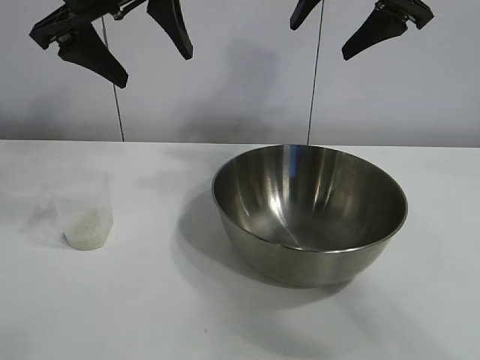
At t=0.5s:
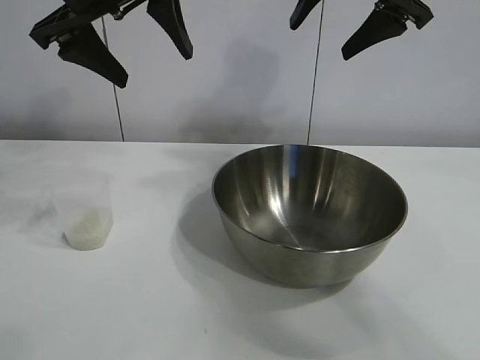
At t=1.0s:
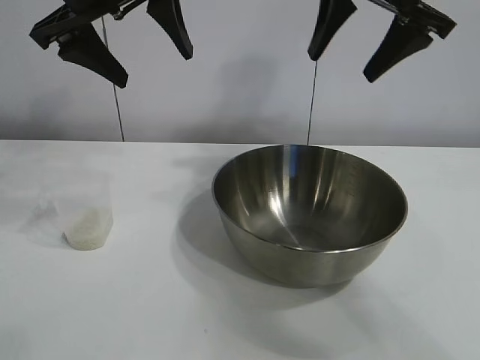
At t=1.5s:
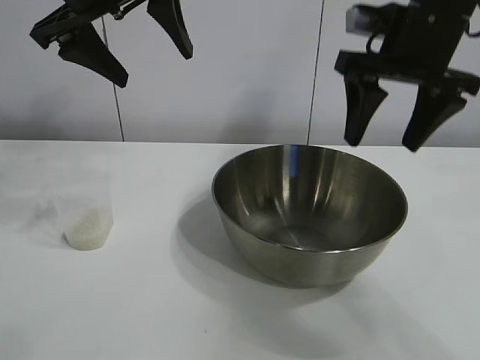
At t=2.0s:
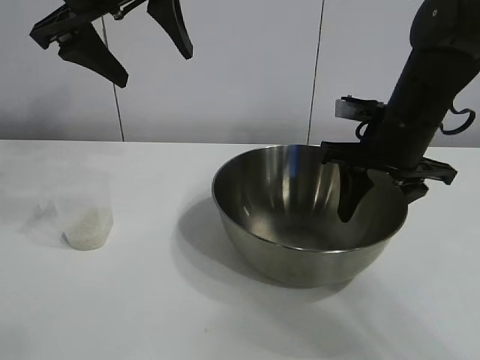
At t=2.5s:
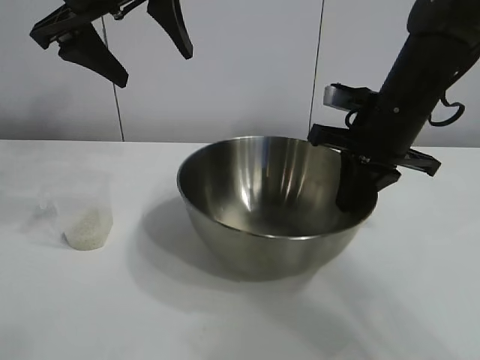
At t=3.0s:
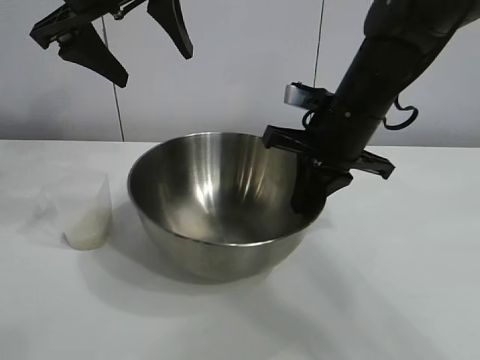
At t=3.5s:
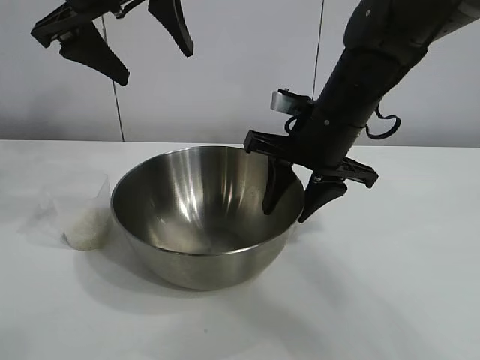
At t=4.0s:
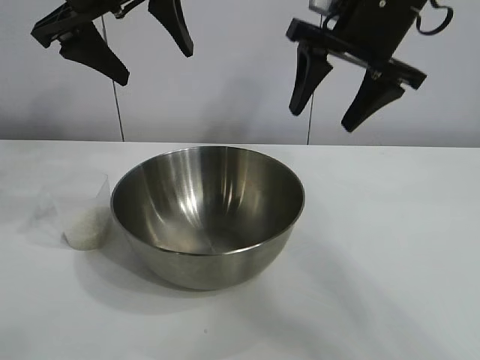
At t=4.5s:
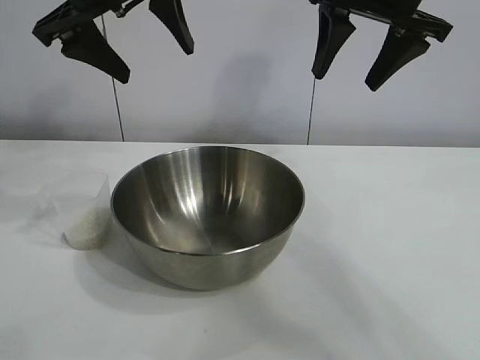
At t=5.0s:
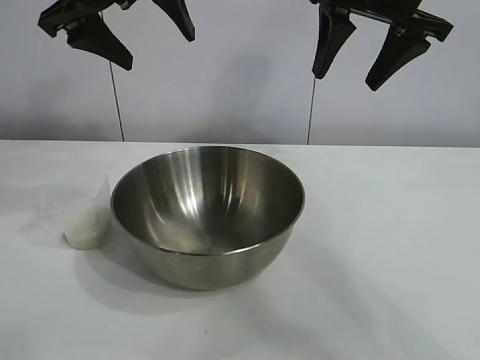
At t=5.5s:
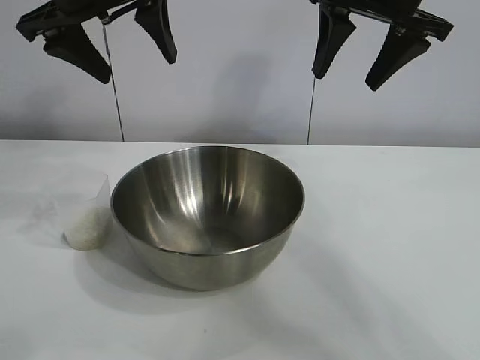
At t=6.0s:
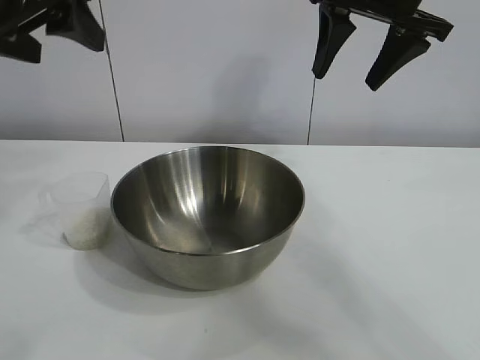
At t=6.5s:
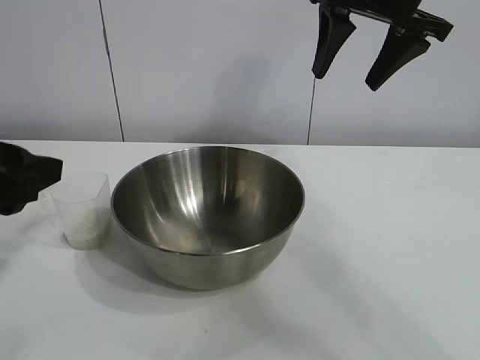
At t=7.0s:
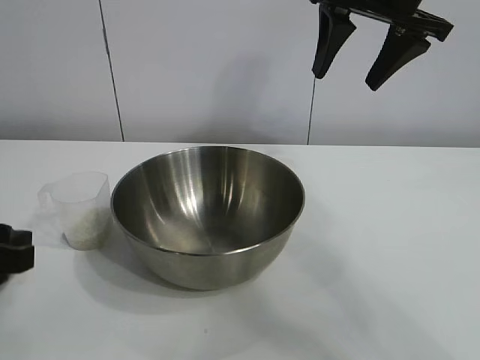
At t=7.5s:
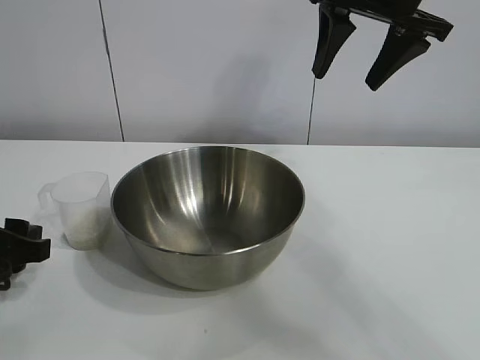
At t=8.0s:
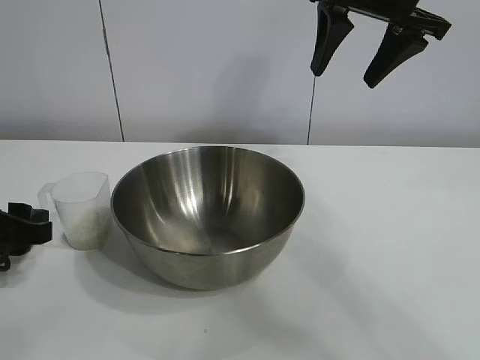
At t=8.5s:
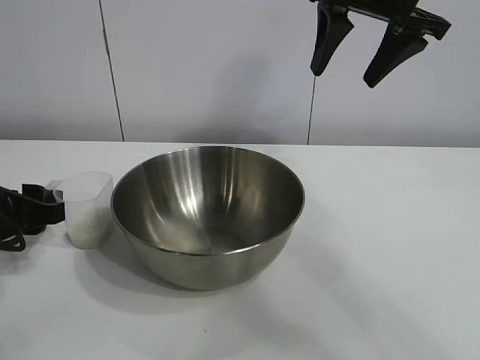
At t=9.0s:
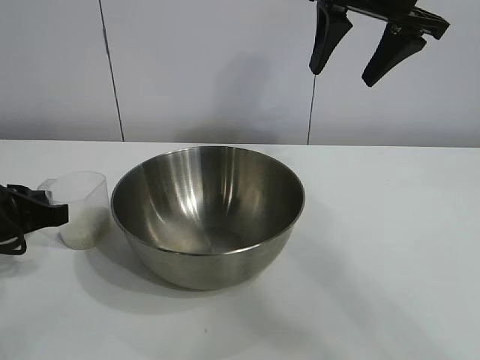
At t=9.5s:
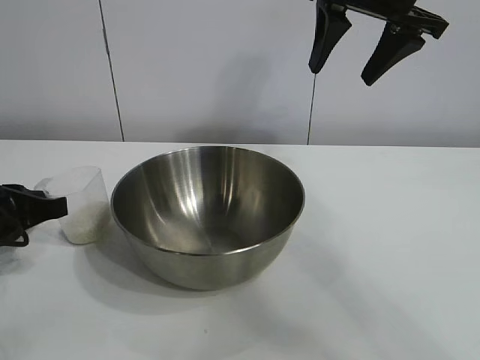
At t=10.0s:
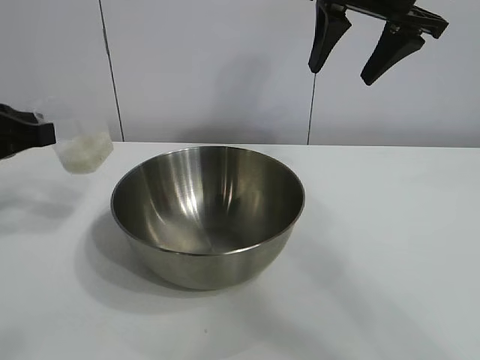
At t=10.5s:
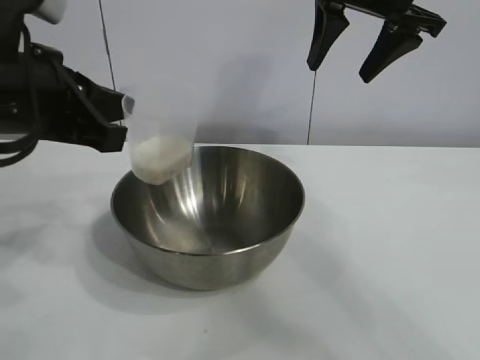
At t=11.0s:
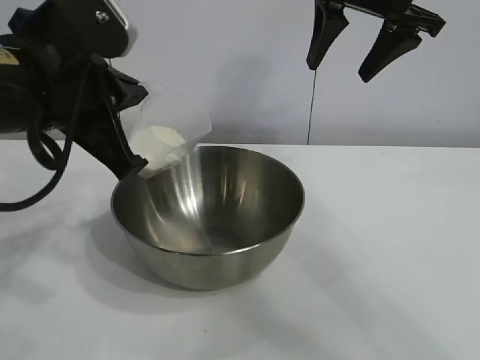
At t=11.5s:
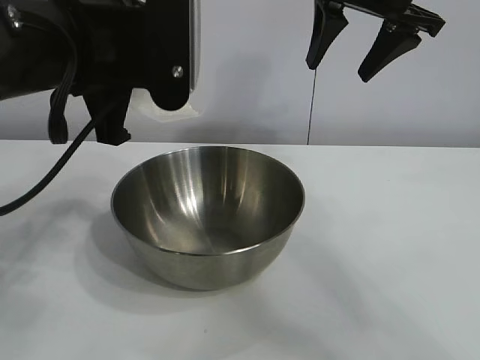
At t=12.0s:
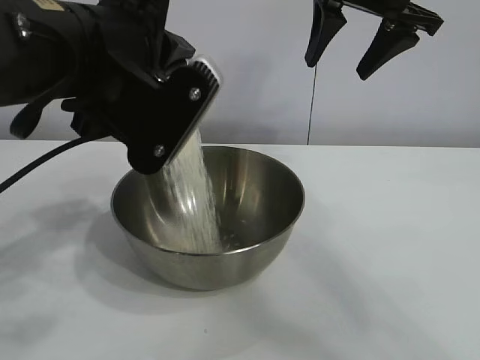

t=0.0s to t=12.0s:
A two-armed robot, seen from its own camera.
Task of the whole recording: the right gripper grasp the rice container and place it in the center of the table, the left gripper grasp the rice scoop and pour the rice into the rice container.
Step, t=1.0s to t=3.5s: Move the bowl in the center of view with right gripper.
Step, t=4.0s to t=9.0s: Grasp the cup with rice in it with left gripper.

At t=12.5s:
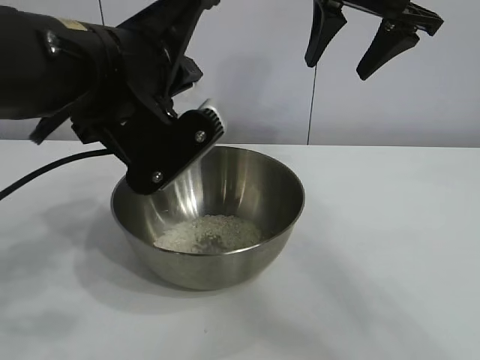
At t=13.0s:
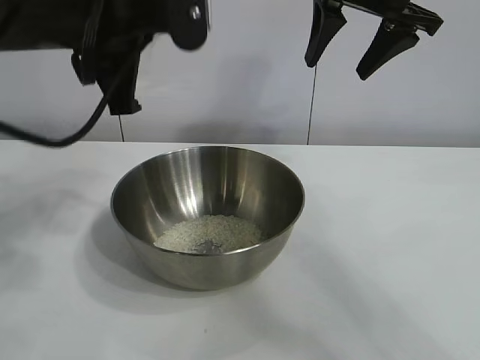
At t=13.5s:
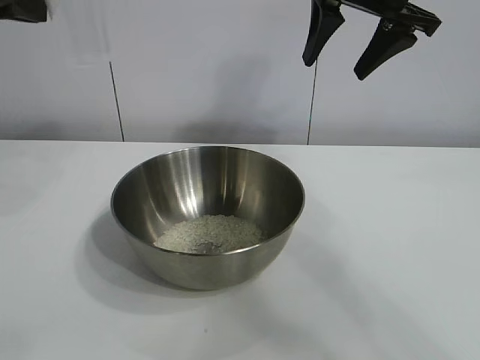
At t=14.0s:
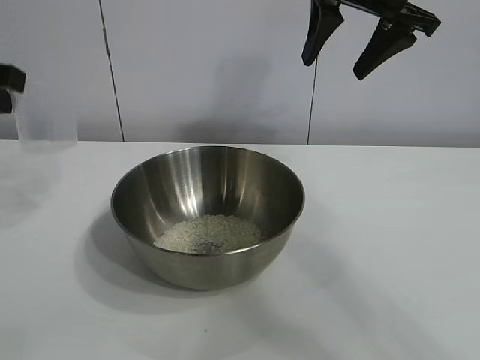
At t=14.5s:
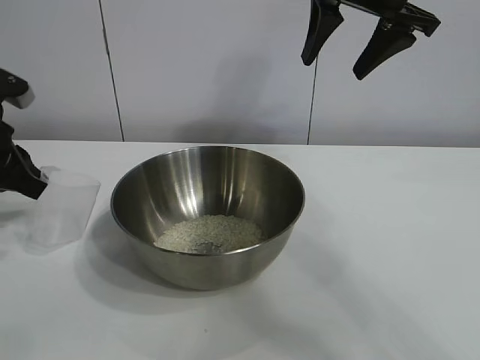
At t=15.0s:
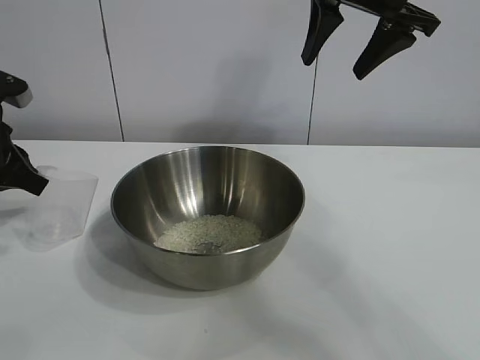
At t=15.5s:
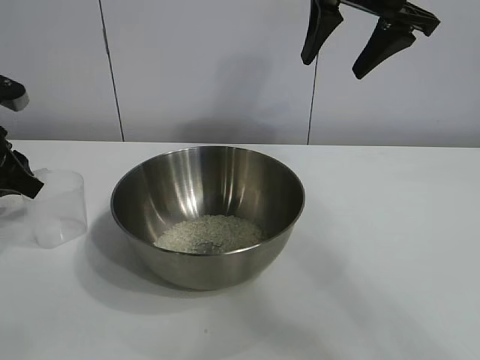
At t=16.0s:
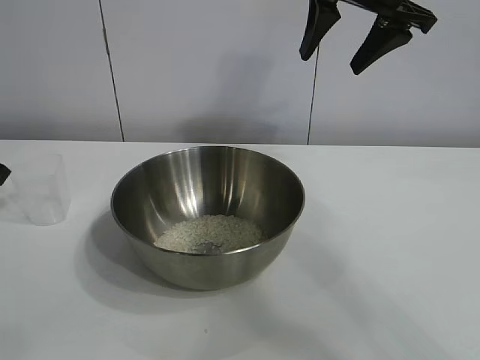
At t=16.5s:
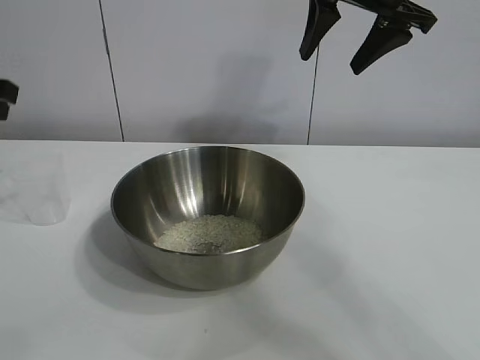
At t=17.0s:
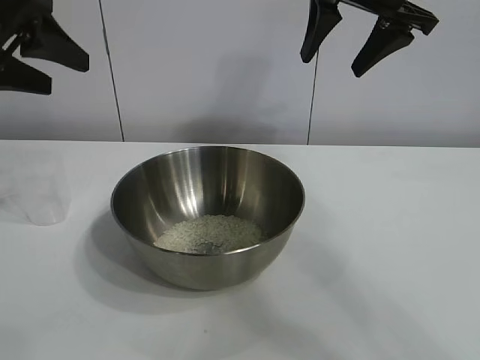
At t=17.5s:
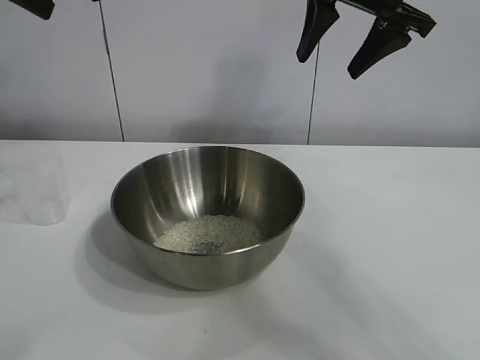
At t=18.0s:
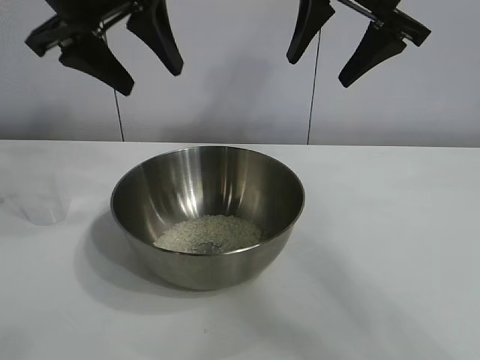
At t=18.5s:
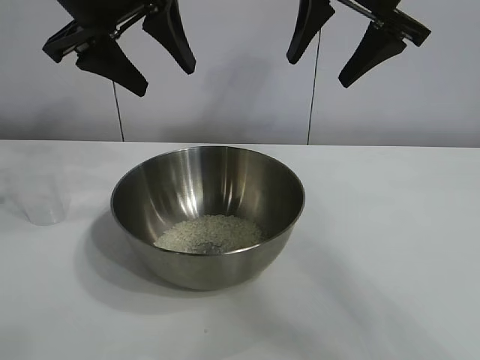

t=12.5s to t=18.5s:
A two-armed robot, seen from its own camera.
Task of the whole recording: the right gripper grasp the rice container and place it in the center of the table, the left gripper grasp the rice scoop and pour the rice into the rice container.
Step, t=13.0s to t=15.5s: Place the cup on the table with the left gripper.

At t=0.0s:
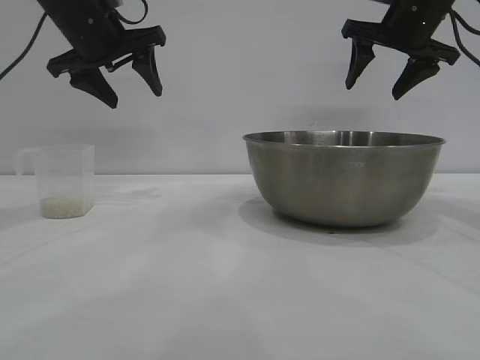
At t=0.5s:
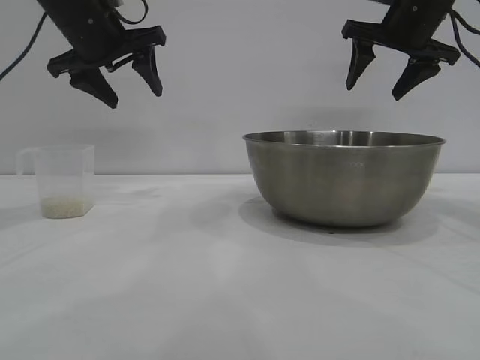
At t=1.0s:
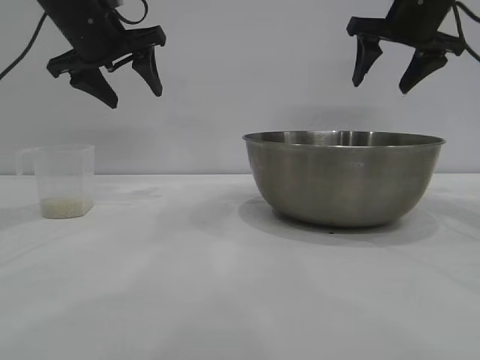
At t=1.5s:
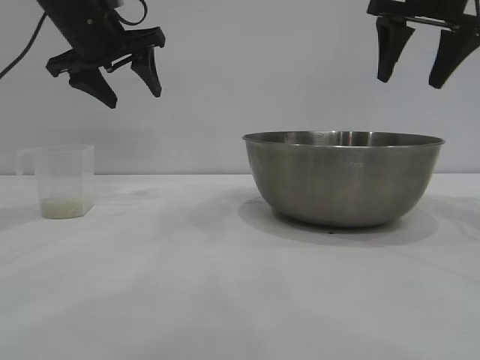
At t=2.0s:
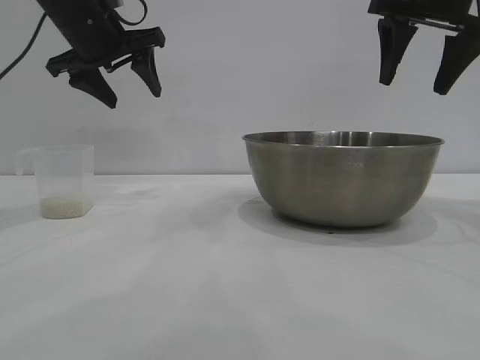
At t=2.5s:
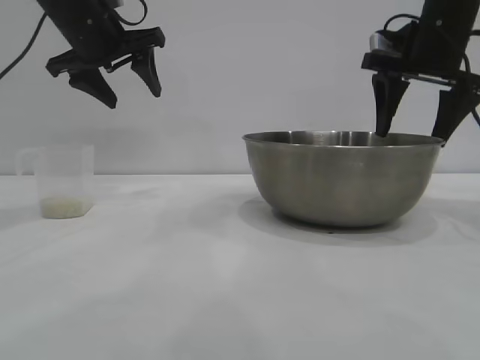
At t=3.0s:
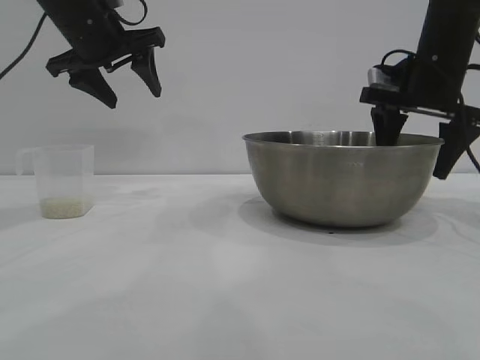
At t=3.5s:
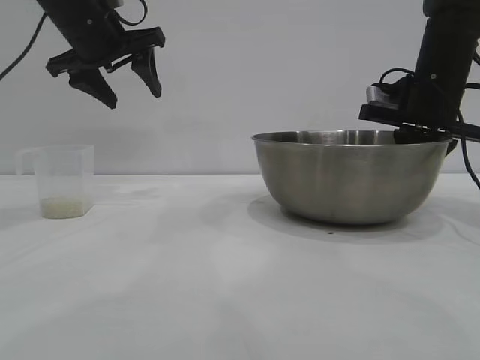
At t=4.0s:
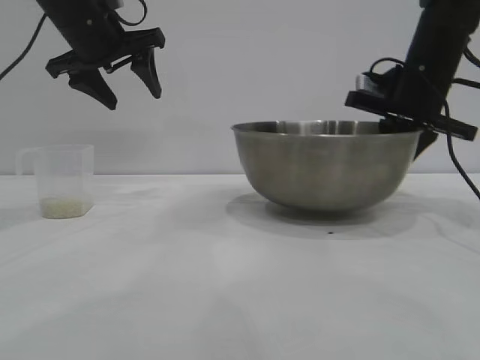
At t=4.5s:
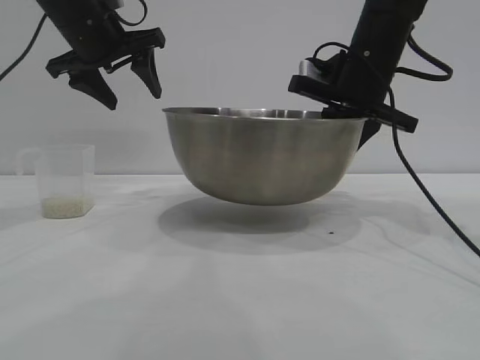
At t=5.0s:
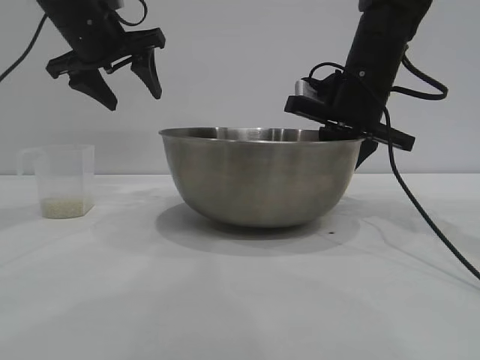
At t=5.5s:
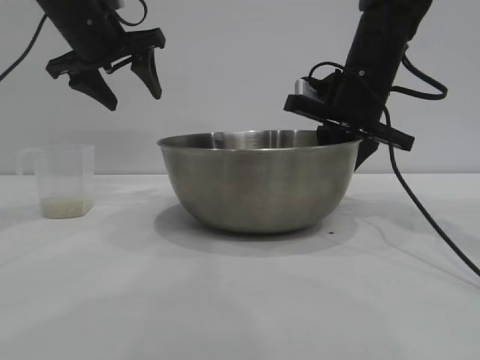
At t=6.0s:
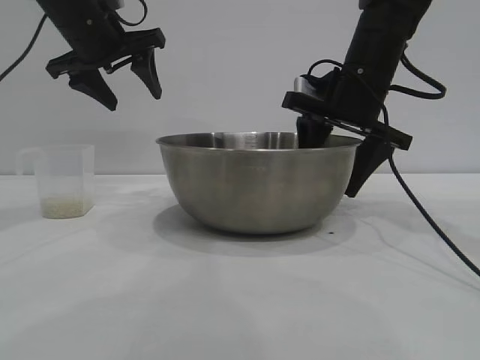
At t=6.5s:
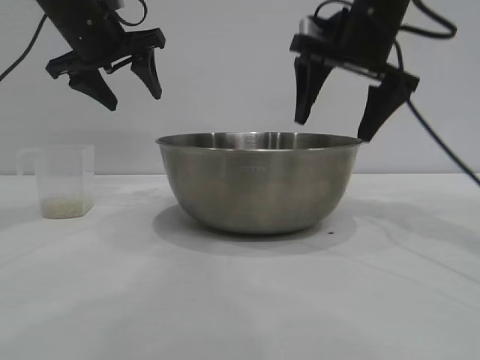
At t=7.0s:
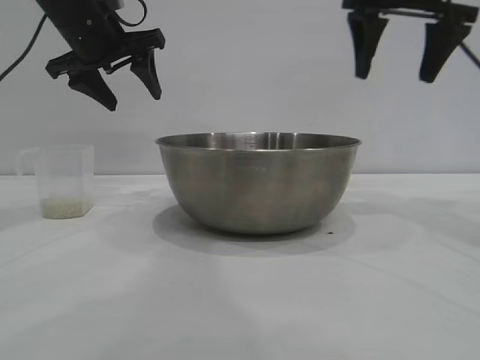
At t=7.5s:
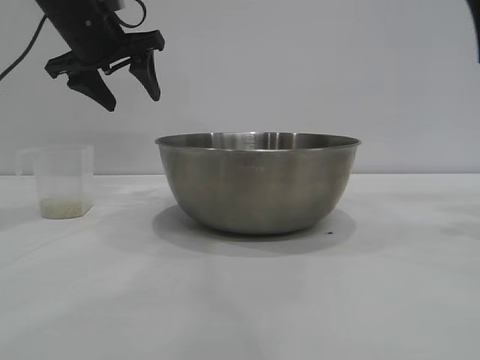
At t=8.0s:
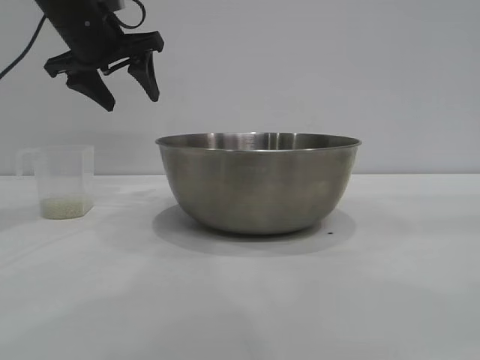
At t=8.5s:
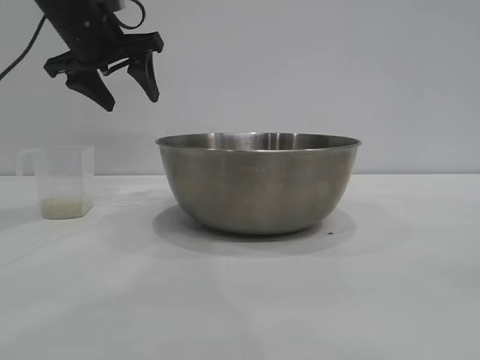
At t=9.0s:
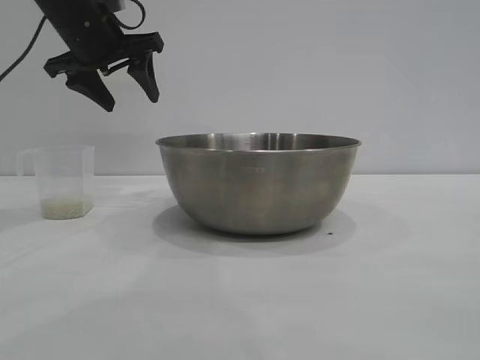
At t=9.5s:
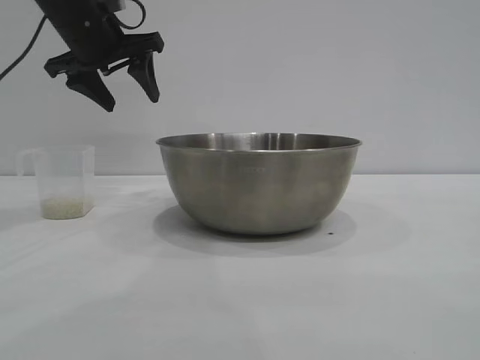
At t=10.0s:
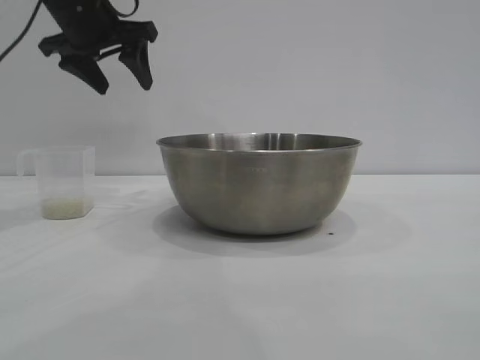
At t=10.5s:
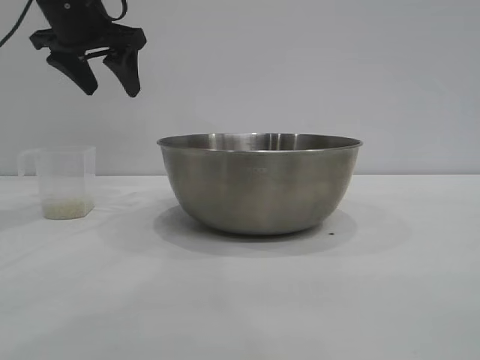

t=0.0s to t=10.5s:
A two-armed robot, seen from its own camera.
Task of the whole recording: the right gripper grasp the rice container and place it in the center of the table, the left gripper grasp the rice scoop and pour the rice into the rice container.
Step, t=0.0s to t=4.0s: Pick up the bowl with the right gripper.
Step, t=4.5s to t=6.5s: Place the bowl in the center of view with the right gripper.
